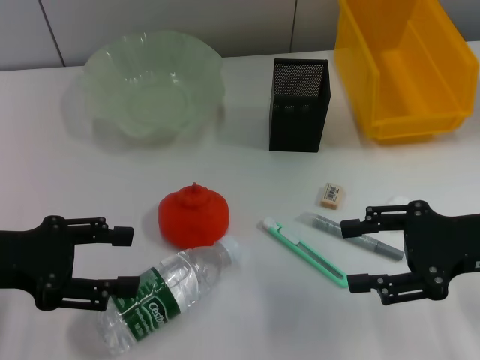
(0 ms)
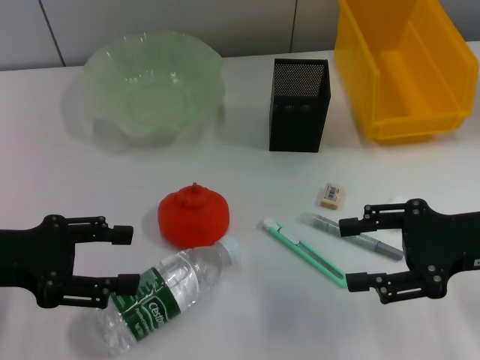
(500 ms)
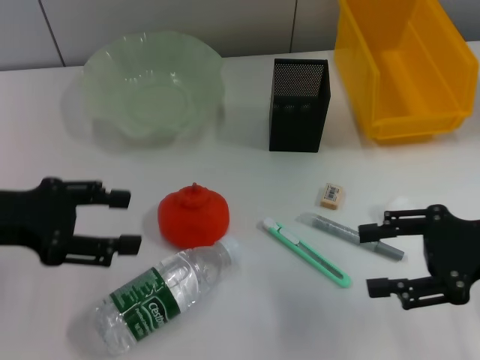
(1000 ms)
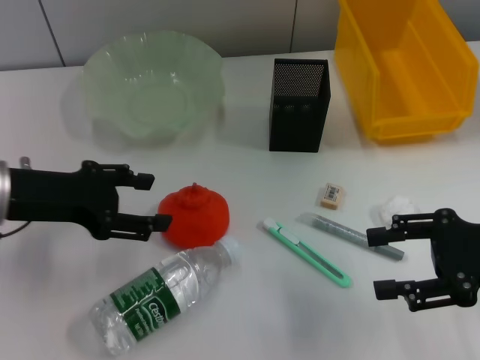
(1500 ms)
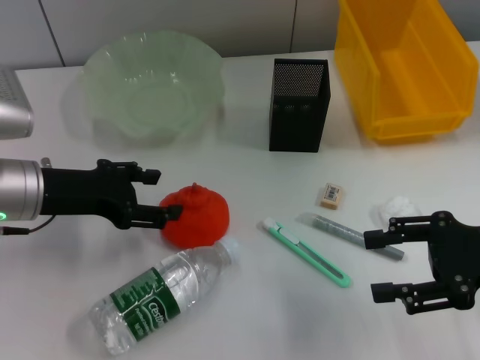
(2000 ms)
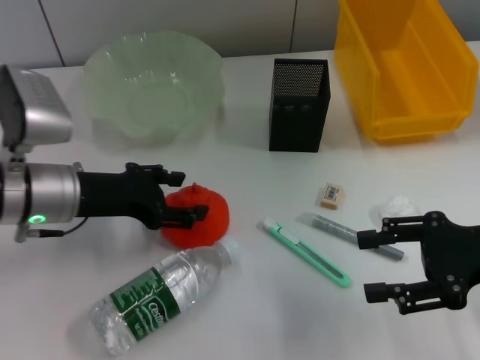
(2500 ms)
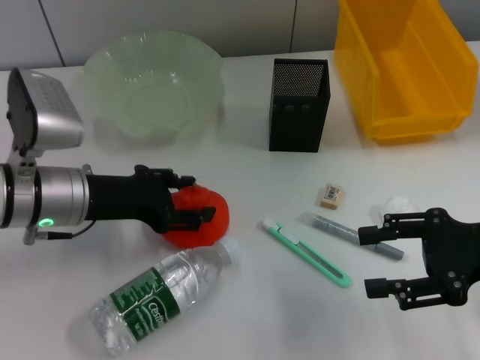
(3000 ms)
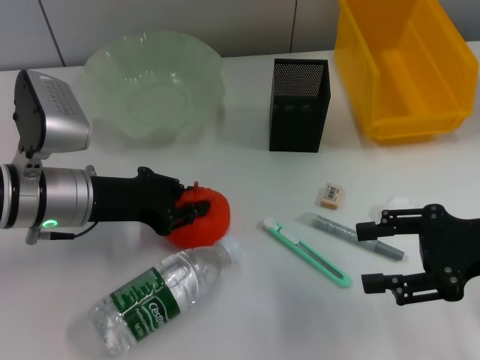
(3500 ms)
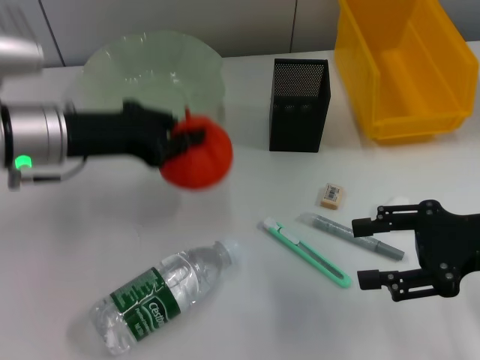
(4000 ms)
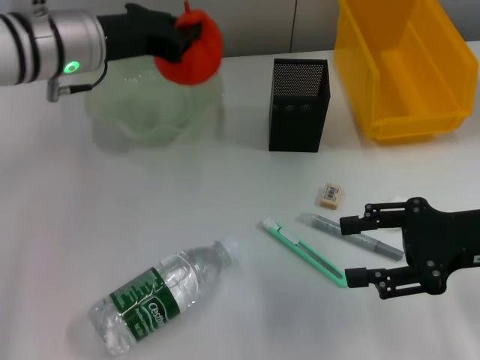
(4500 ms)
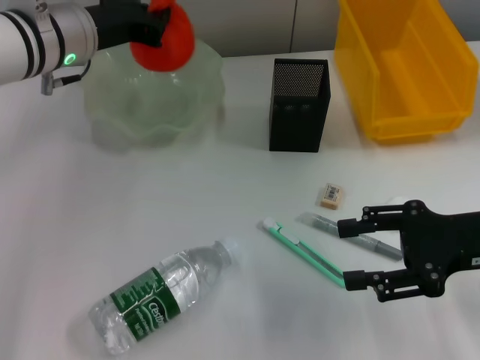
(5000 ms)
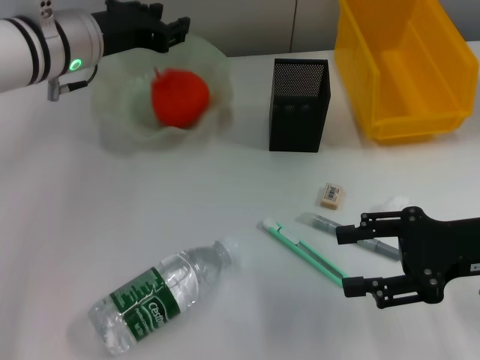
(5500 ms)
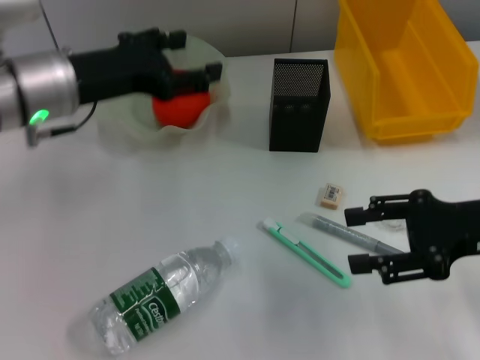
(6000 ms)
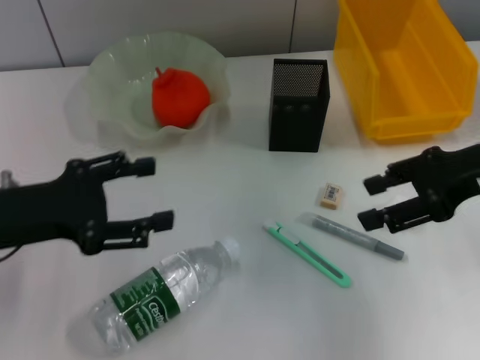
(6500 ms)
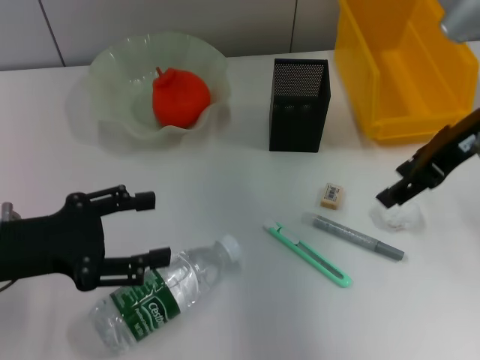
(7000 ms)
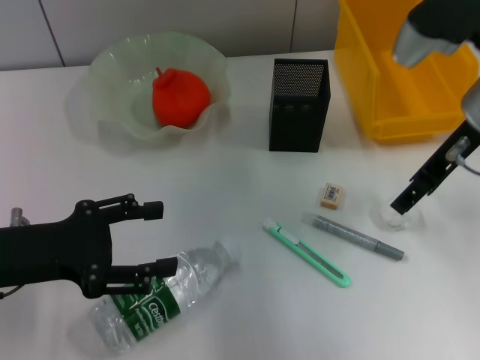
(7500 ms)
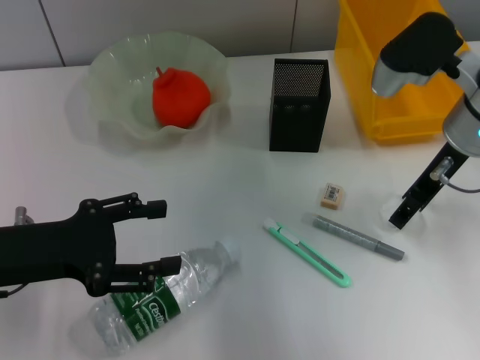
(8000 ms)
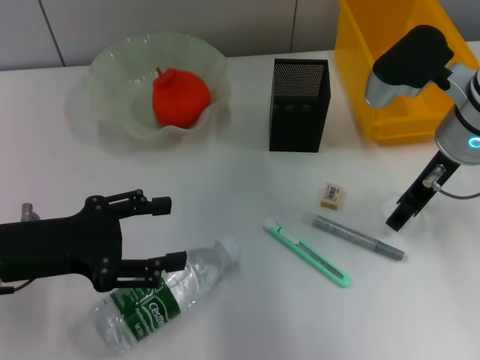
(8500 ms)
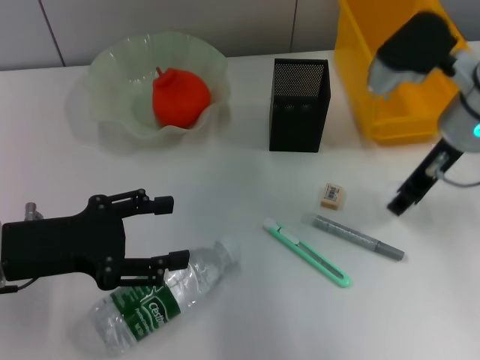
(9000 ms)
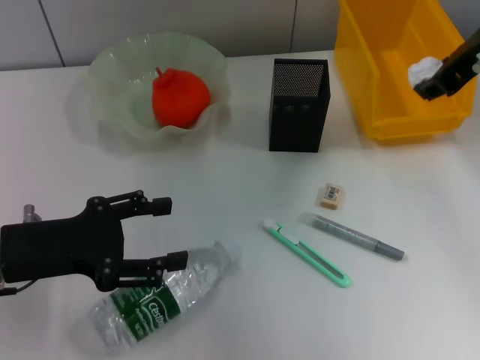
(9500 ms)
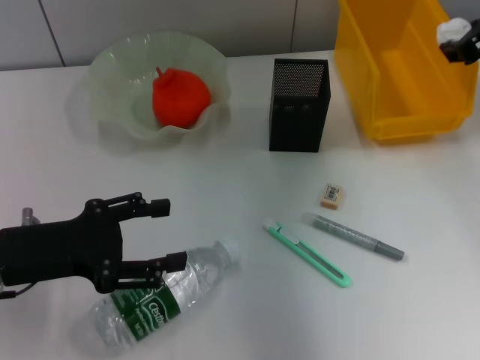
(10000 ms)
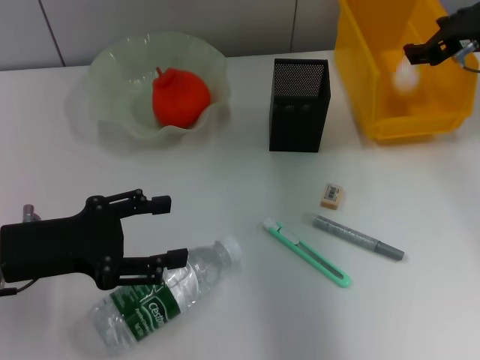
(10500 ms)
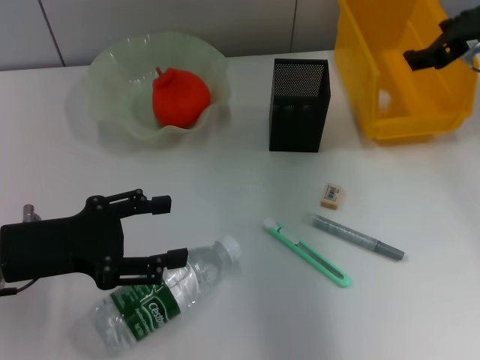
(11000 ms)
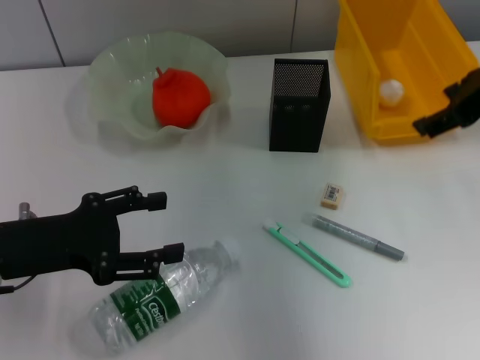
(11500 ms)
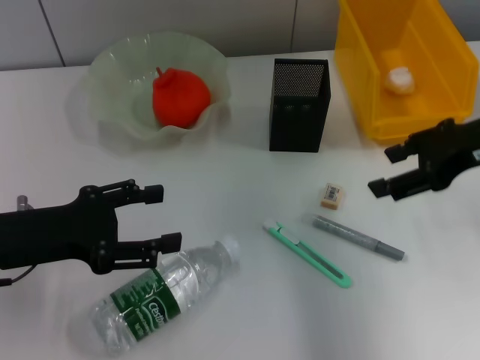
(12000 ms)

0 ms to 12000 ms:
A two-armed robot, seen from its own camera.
Step, 0 ms to 3500 ms: Grab the orange with the left hand.
Step, 4000 ms to 6000 ms: Place the orange into the fruit bowl with the left hand.
Step, 6500 ms to 8500 ms: Grab the paper ball with the right hand.
Step, 9000 ms to 10500 ms: Place the paper ball into the trash can with the right hand.
0 ms to 2000 ms: The left gripper is displaced forward and to the right by approximately 10 cm.
2000 ms to 4000 ms: The left gripper ends up some 5 cm from where it was, and closes.
4000 ms to 6000 ms: The left gripper reaches some 10 cm forward, then returns, and opens.
6000 ms to 8000 ms: The left gripper heads backward, to the left and downward, covering roughly 15 cm. Meanwhile the right gripper goes approximately 15 cm forward and to the left.
8000 ms to 10000 ms: The right gripper heads upward and to the right, covering roughly 10 cm, and closes up.
10000 ms to 12000 ms: The right gripper shifts some 5 cm backward, and opens its fingers.

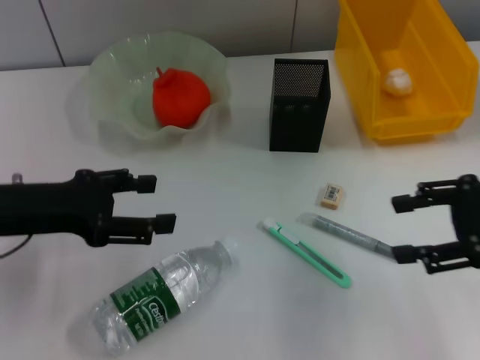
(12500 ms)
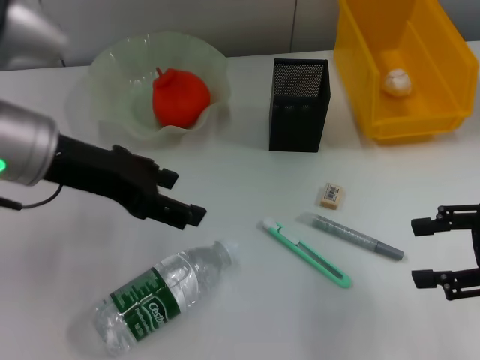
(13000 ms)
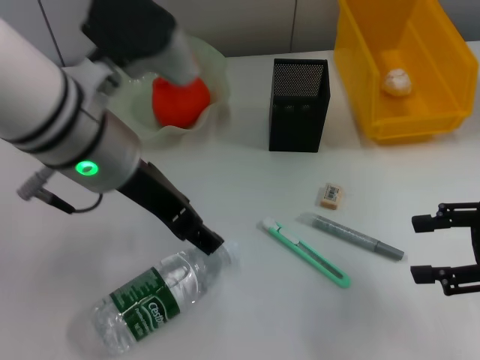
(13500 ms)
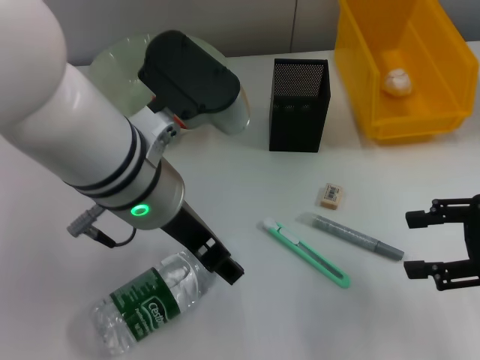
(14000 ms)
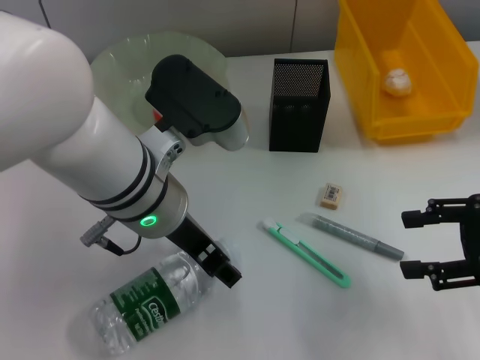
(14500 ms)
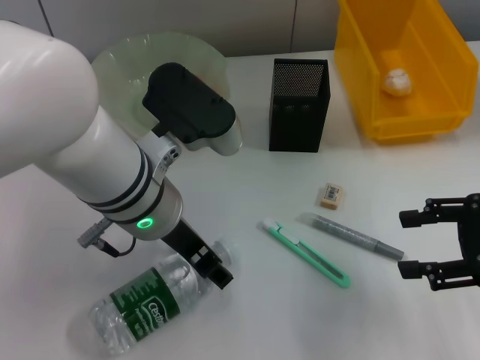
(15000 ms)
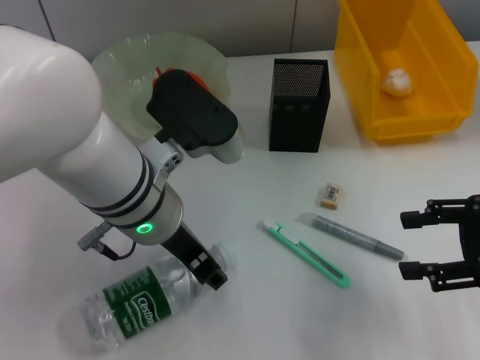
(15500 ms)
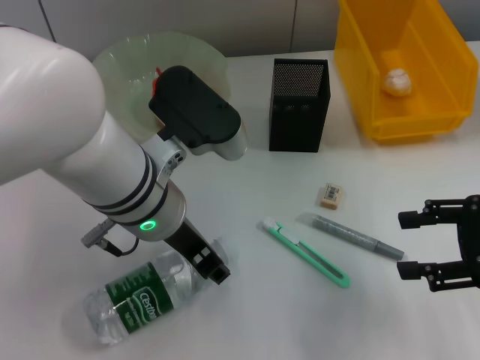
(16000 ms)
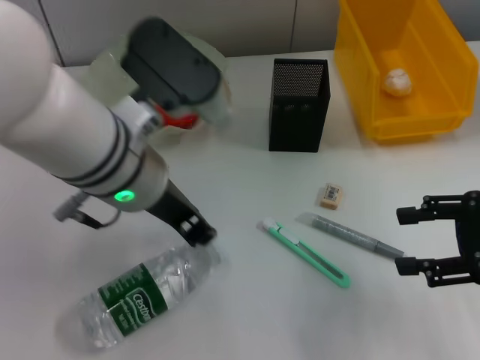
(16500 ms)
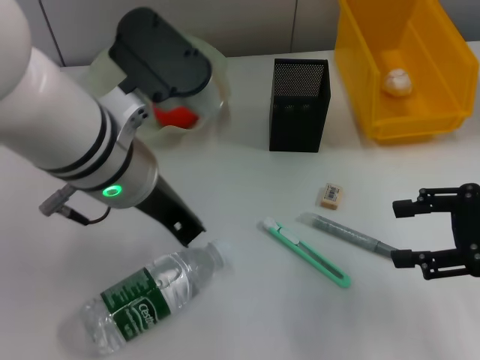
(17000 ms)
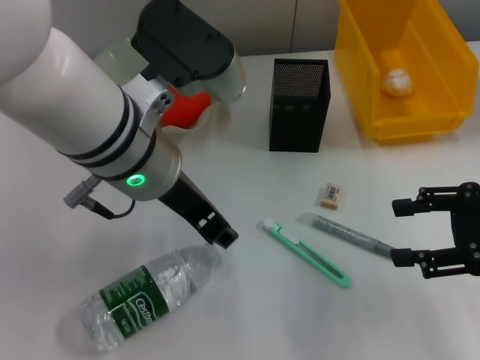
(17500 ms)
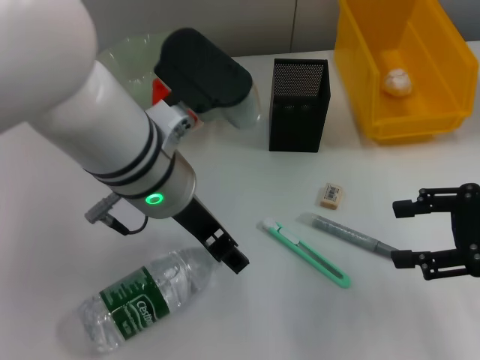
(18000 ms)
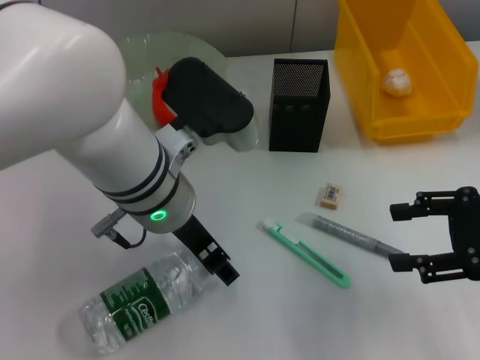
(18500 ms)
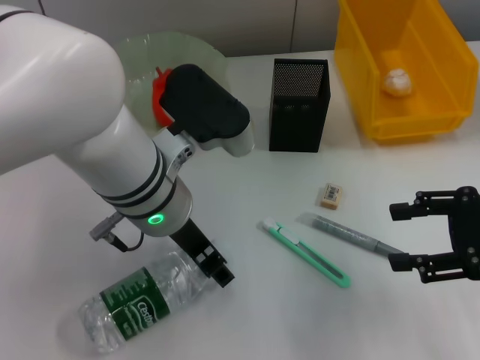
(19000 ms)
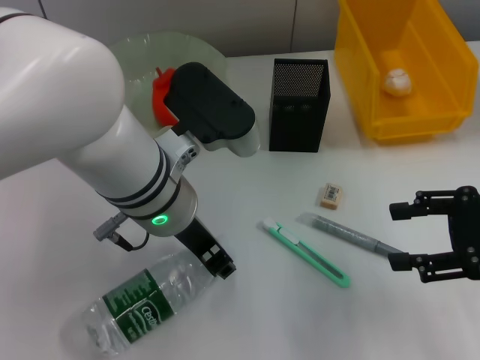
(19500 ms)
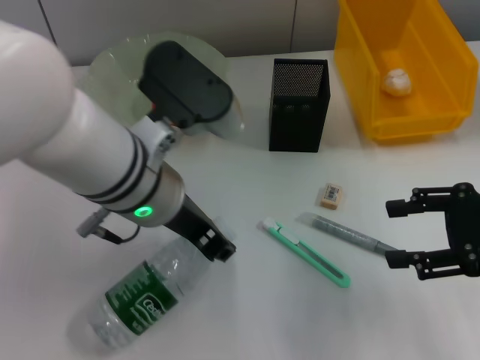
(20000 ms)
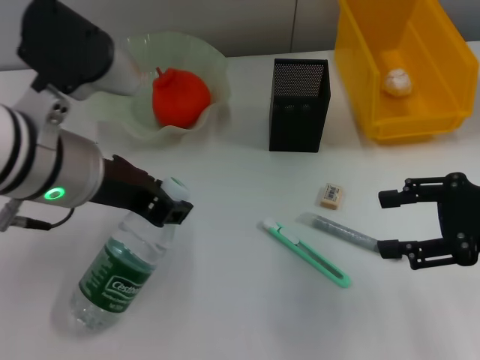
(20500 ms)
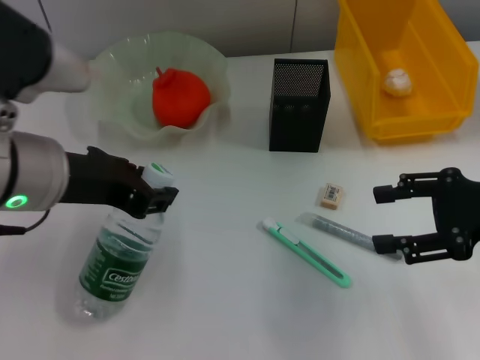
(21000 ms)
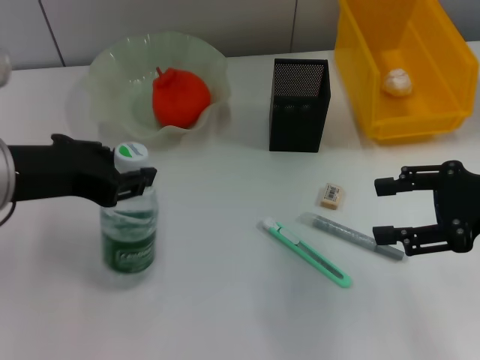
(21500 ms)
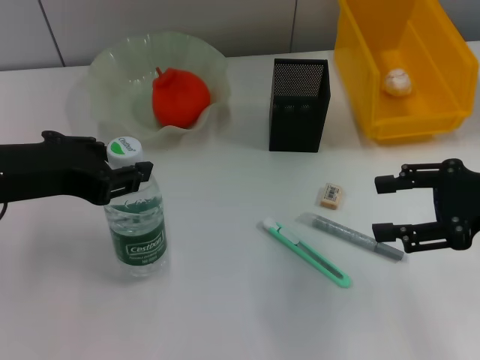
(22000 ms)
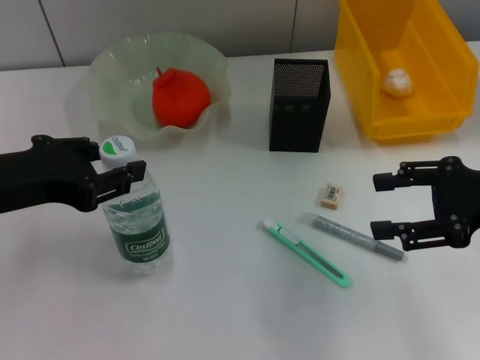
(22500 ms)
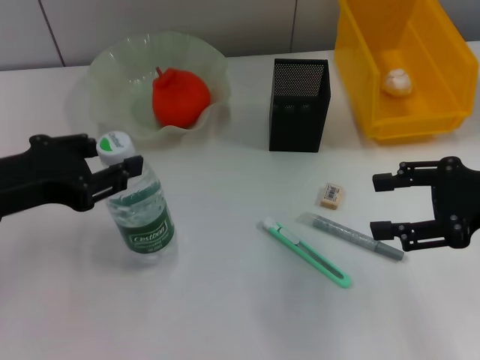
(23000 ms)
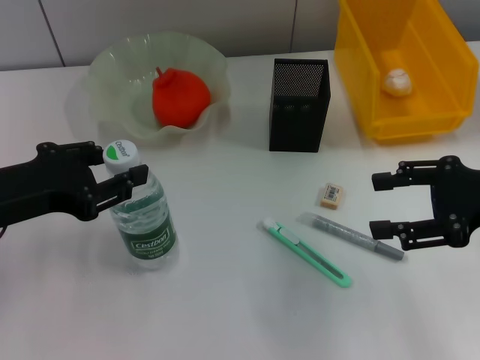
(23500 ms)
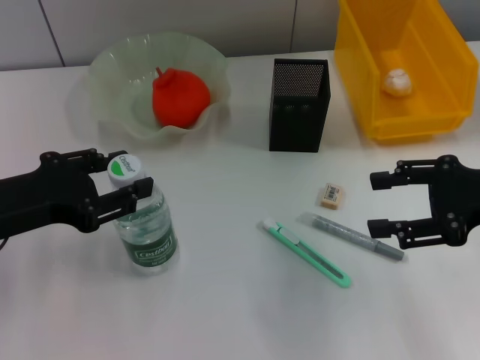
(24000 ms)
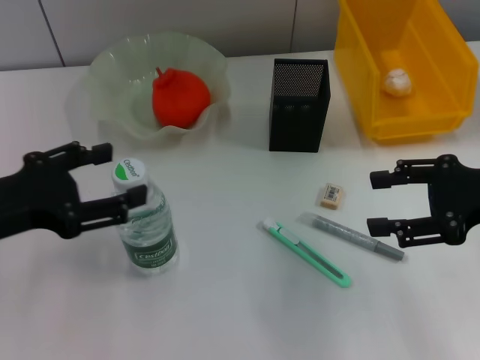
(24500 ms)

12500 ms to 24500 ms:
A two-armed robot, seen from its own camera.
Step, 12500 ms to 19500 ms: Grab the water bottle with the left hand.
Step, 20000 ms to 24000 ms: Place the water bottle on the table with the left hand.
12500 ms to 14500 ms: The left gripper goes some 20 cm to the right.
14500 ms to 16500 ms: The left gripper closes its fingers.
16500 ms to 18500 ms: The left gripper opens its fingers.
18500 ms to 20500 ms: The left gripper goes about 10 cm to the left, and closes up.
20500 ms to 22500 ms: The left gripper heads to the left, covering roughly 10 cm.
22500 ms to 24500 ms: The left gripper opens up.

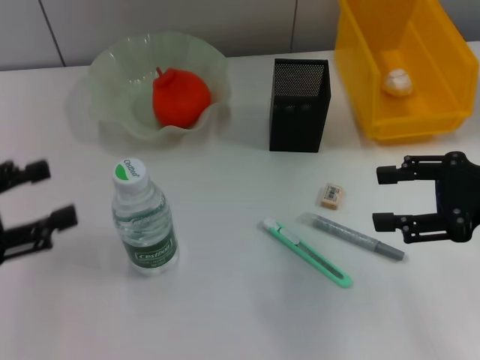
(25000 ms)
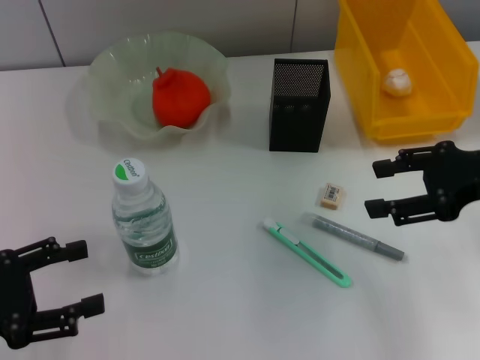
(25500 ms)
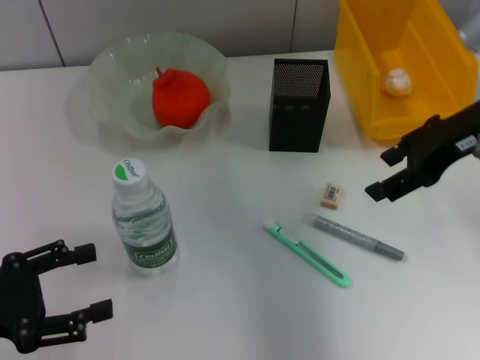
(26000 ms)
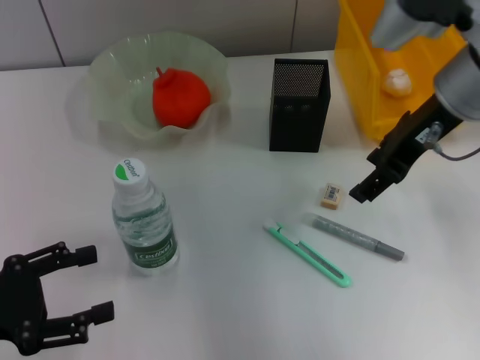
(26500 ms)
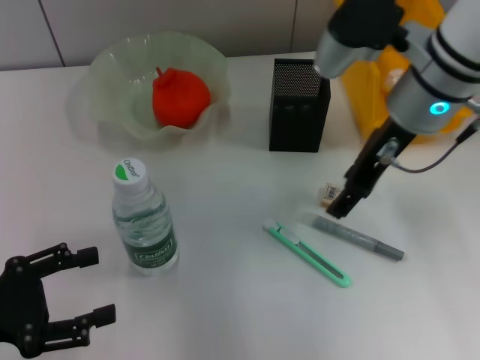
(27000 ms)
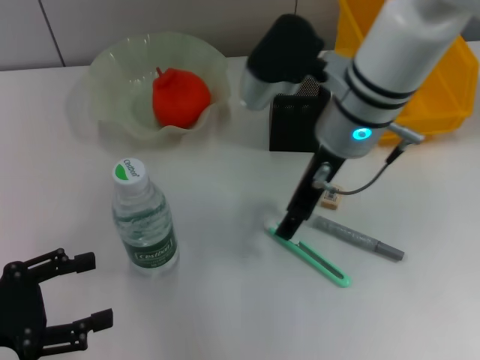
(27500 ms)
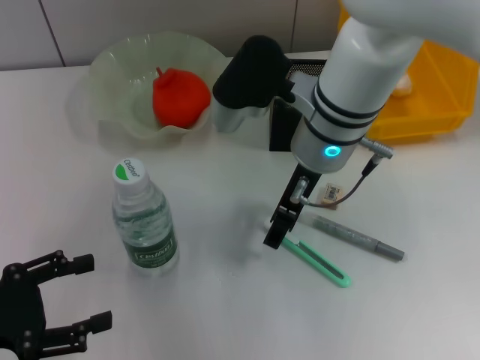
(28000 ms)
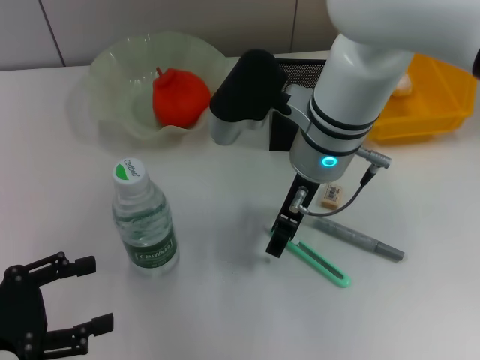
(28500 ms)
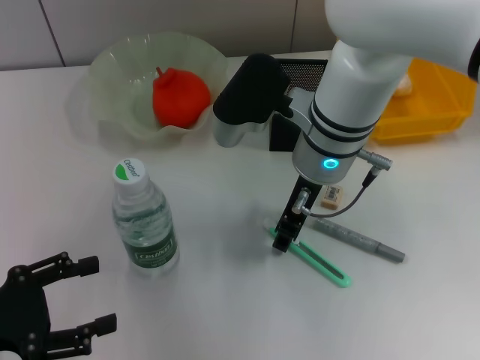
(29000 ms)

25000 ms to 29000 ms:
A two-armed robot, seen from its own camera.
25000 ms to 27000 ms: The right gripper moves to the left and forward, about 20 cm. Meanwhile the left gripper goes some 5 cm downward.
27000 ms to 29000 ms: The right gripper moves to the left and downward, about 10 cm.
